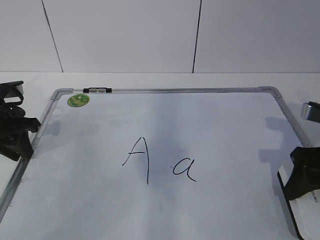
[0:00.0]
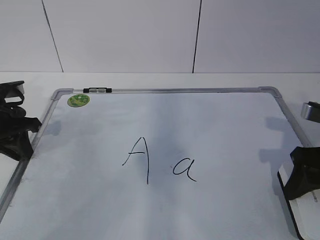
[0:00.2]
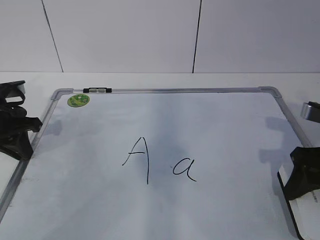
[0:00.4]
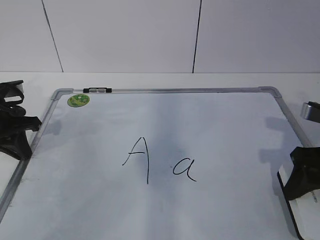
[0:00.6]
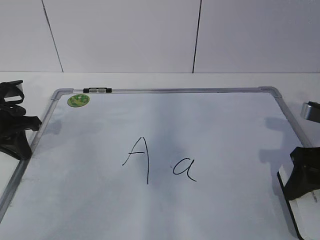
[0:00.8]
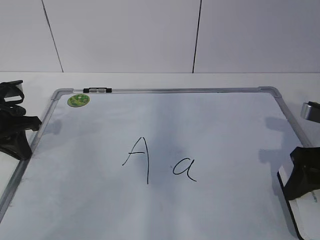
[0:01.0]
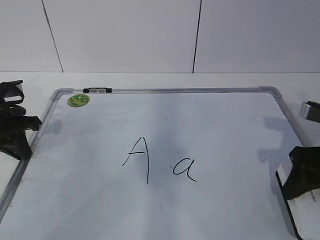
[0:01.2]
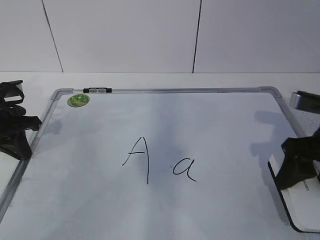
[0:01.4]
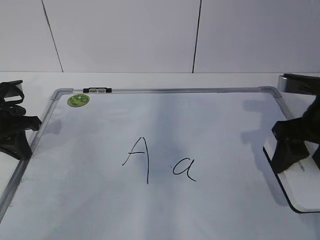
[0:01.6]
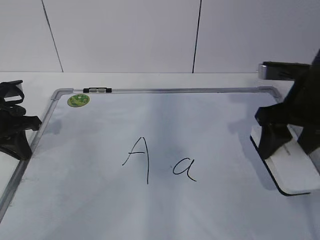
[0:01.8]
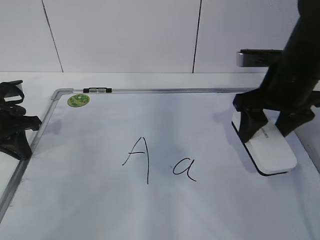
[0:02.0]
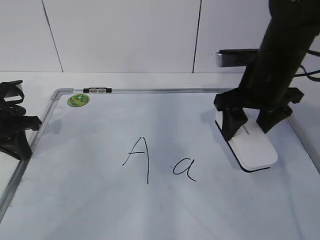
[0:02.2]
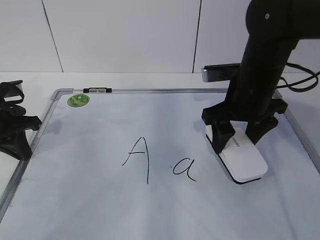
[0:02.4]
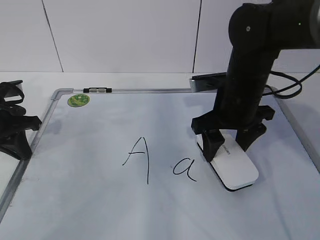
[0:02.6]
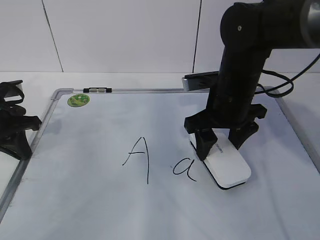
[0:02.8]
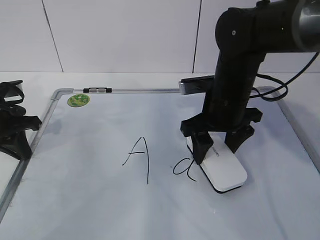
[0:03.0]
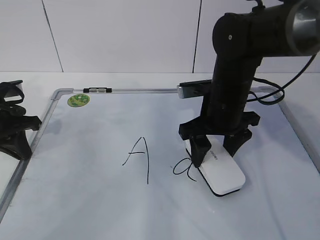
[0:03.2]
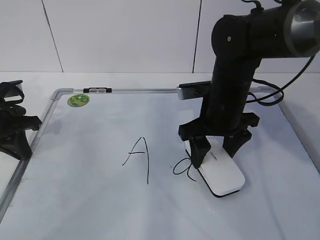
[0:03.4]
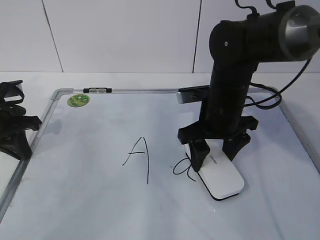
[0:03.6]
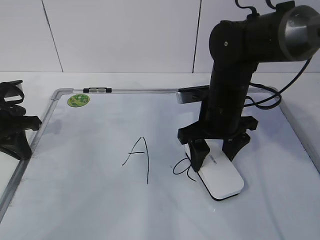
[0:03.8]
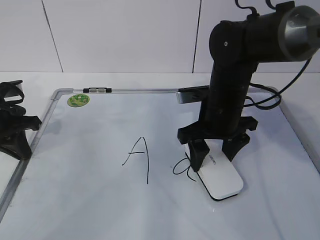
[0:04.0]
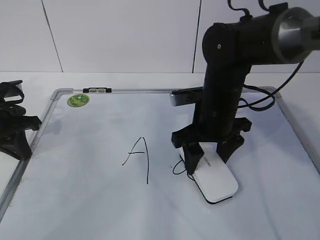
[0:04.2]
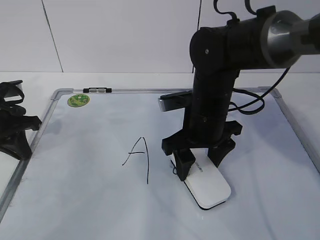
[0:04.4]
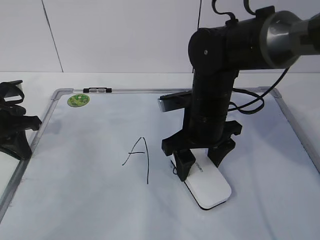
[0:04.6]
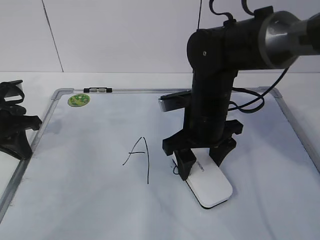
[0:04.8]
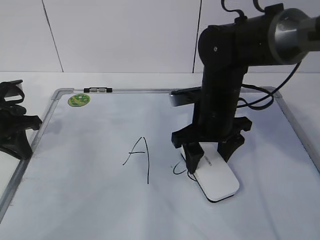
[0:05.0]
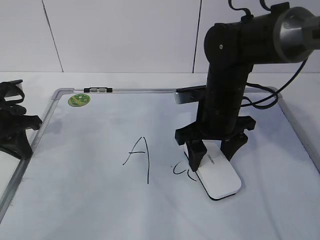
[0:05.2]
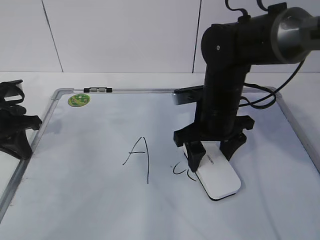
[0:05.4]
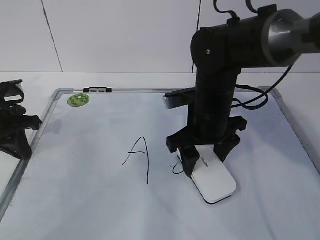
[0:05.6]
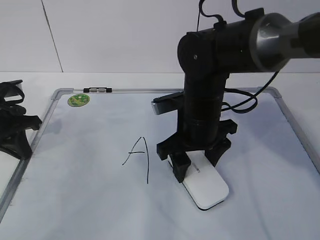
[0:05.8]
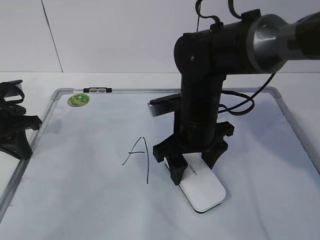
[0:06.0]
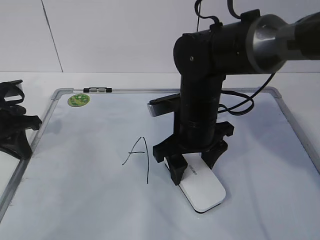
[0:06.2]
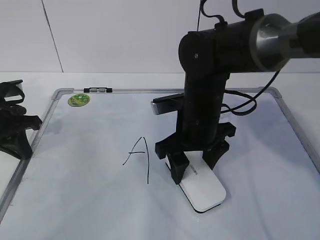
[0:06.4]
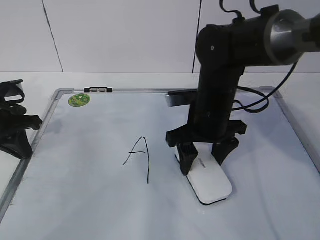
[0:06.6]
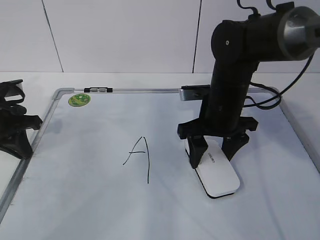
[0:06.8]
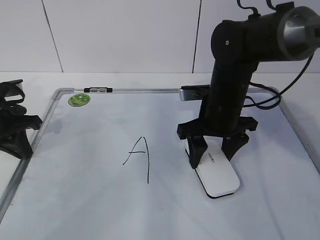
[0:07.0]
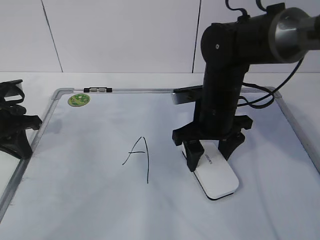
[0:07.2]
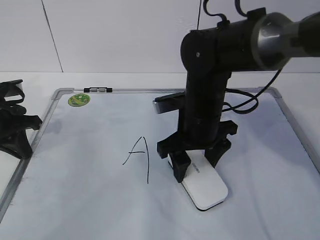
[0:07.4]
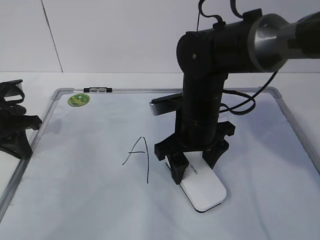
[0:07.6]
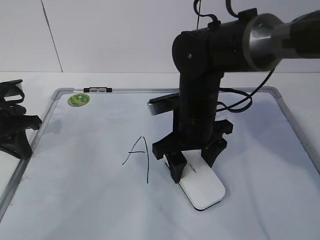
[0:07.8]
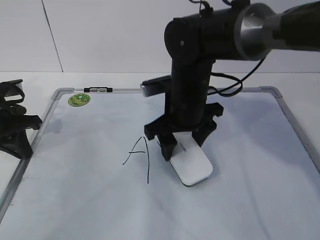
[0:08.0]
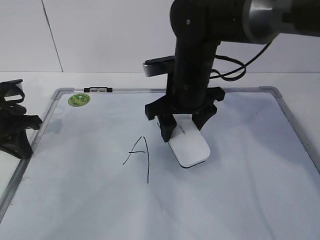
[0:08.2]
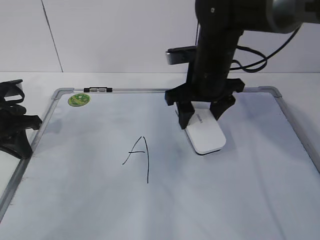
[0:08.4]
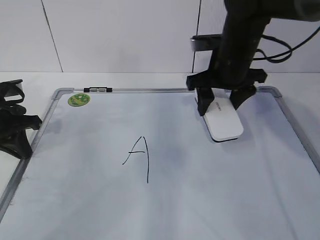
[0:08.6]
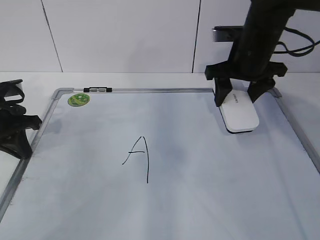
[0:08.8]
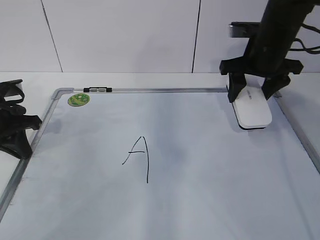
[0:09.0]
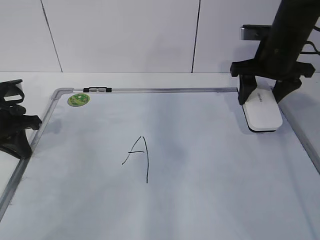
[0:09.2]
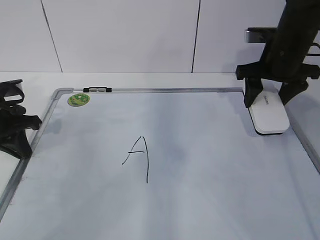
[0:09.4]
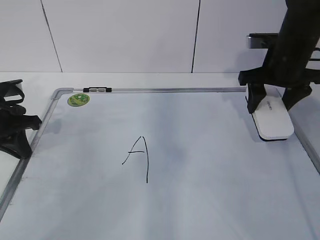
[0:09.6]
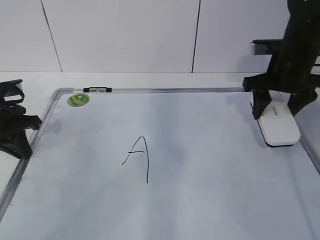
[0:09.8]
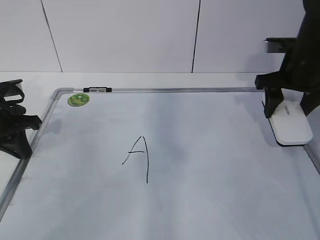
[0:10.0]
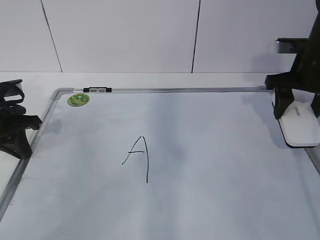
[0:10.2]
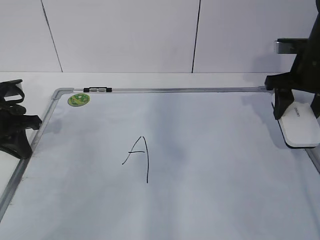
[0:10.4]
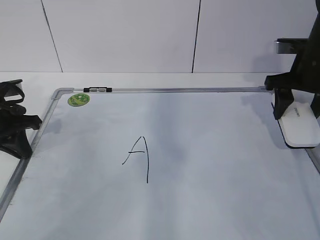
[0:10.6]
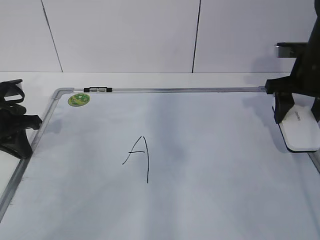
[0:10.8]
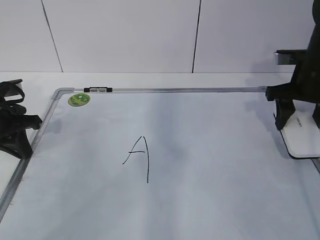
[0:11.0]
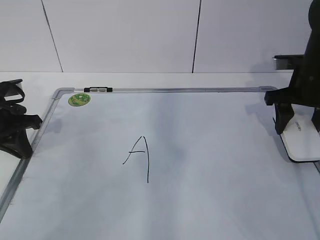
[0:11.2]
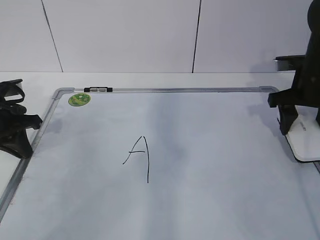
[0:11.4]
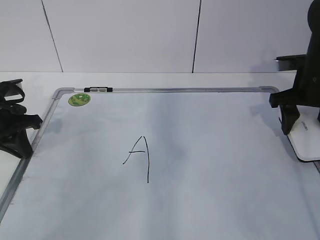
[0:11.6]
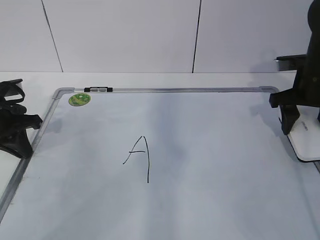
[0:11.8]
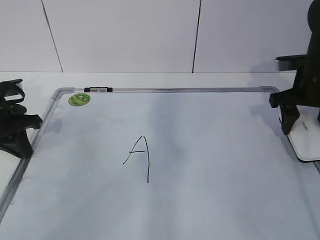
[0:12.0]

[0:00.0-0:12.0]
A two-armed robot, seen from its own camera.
Task of the whole recording: pick up the eraser on the blackboard and erase the letter "a".
Step, 0:00.0 to 0:04.0: Erase the letter a with your right hand.
Step, 0:04.2 to 0:08.8: Put down the eraser with your right hand.
0:00.0 to 0:01.6: The left gripper closes. Meanwhile the right gripper shifts by roughly 5 cm.
0:01.6 to 0:03.0: The right gripper travels to the left and forward by some 15 cm.
0:03.0 to 0:04.4: The grippers make only small movements.
0:04.4 to 0:06.0: The grippers move only a little.
0:07.6 to 0:09.0: The right gripper moves to the right, forward and upward, some 20 cm.
0:09.0 to 0:10.4: The right gripper shifts about 5 cm to the right.
0:10.4 to 0:12.0: There are only small adjustments of the grippers.

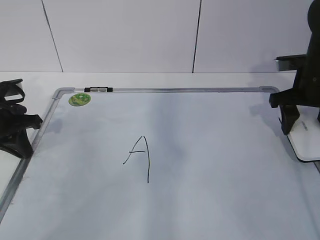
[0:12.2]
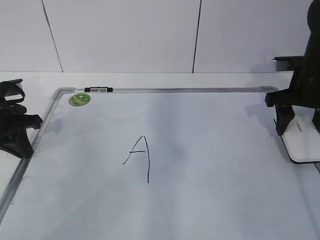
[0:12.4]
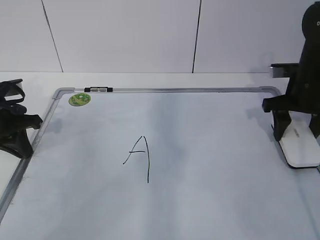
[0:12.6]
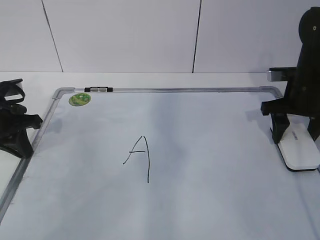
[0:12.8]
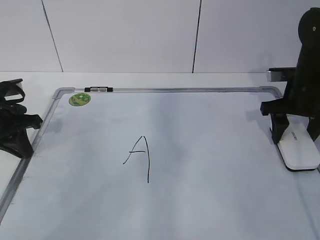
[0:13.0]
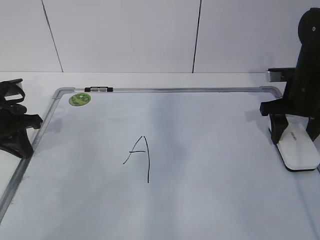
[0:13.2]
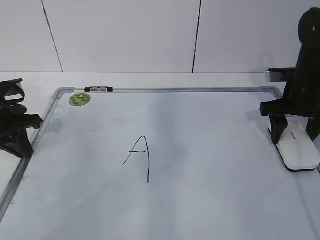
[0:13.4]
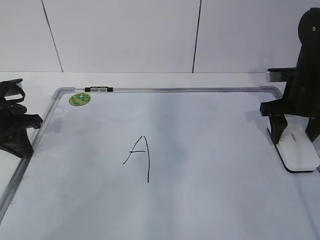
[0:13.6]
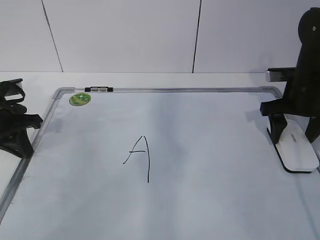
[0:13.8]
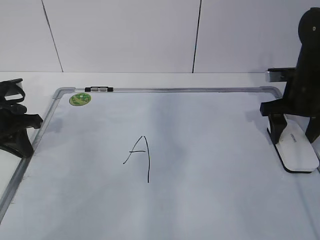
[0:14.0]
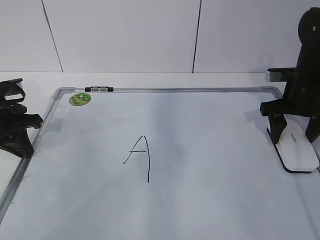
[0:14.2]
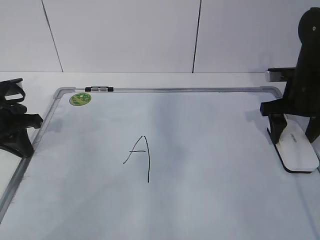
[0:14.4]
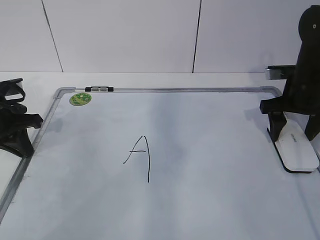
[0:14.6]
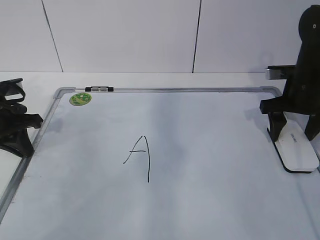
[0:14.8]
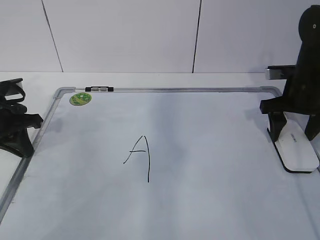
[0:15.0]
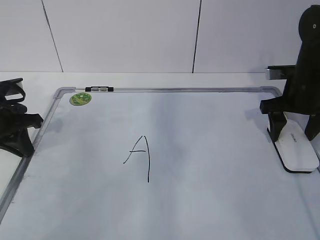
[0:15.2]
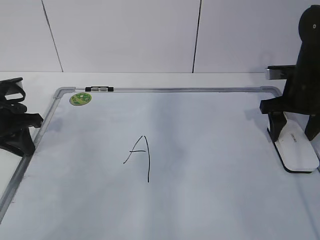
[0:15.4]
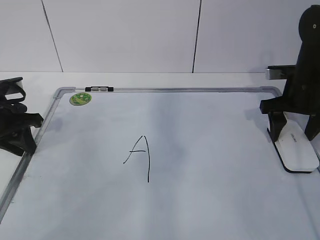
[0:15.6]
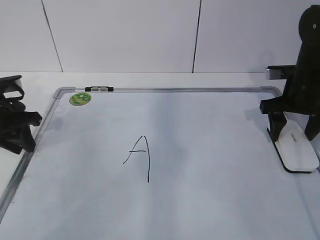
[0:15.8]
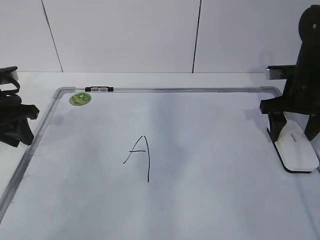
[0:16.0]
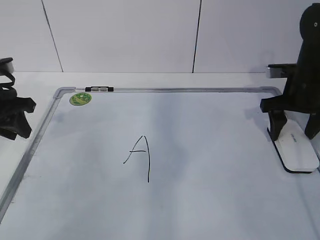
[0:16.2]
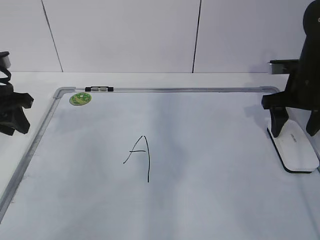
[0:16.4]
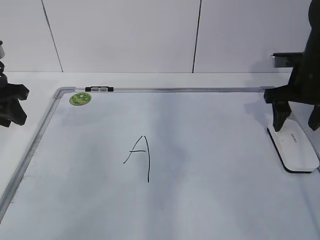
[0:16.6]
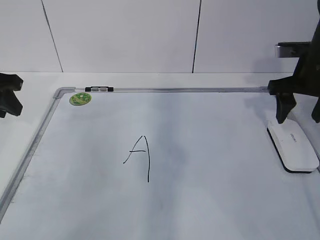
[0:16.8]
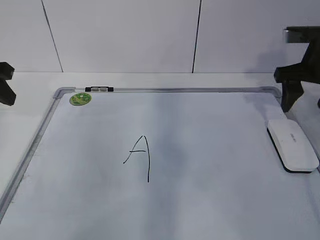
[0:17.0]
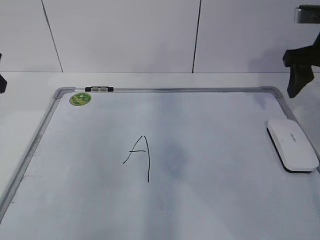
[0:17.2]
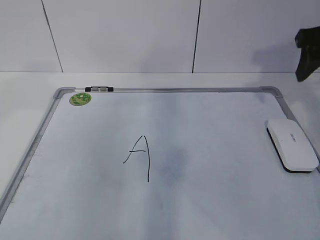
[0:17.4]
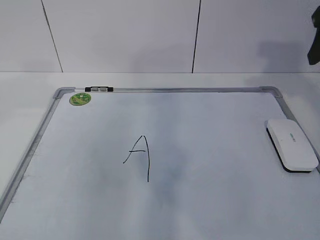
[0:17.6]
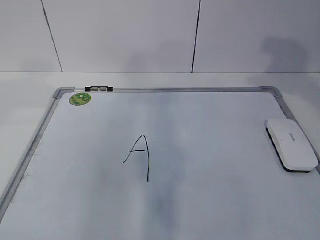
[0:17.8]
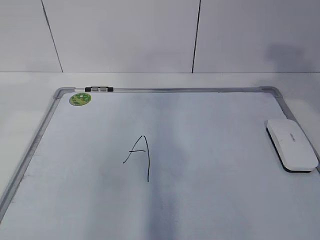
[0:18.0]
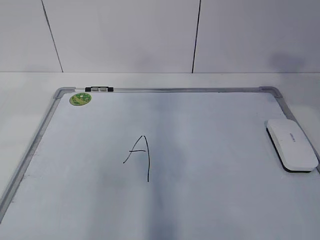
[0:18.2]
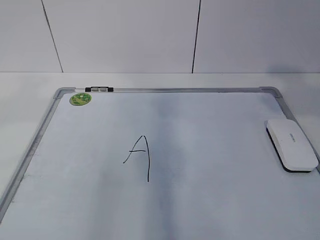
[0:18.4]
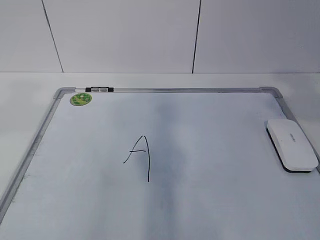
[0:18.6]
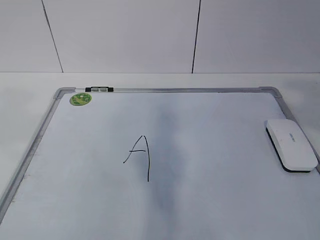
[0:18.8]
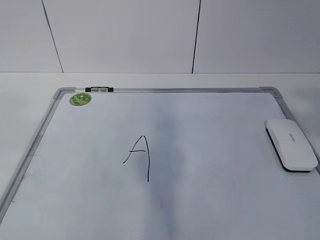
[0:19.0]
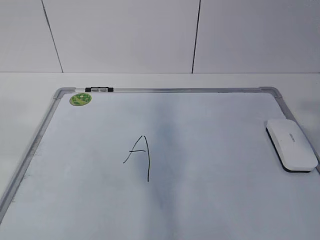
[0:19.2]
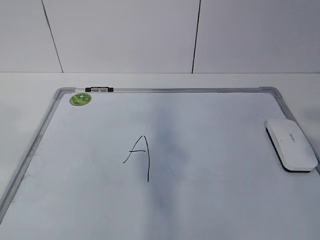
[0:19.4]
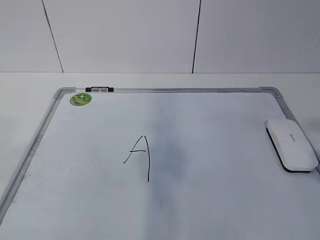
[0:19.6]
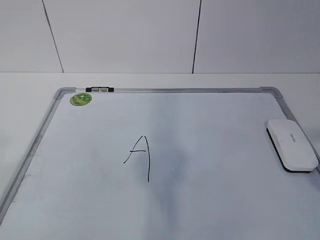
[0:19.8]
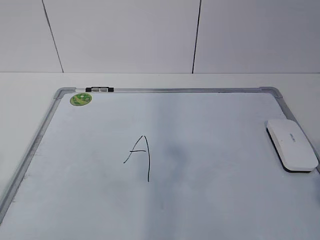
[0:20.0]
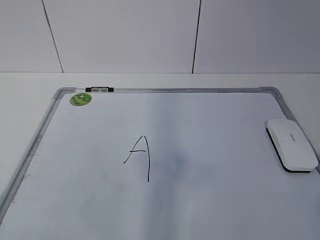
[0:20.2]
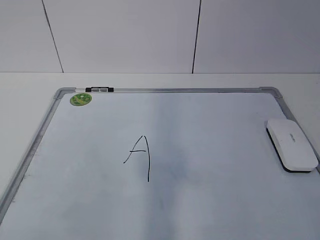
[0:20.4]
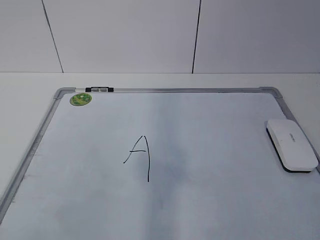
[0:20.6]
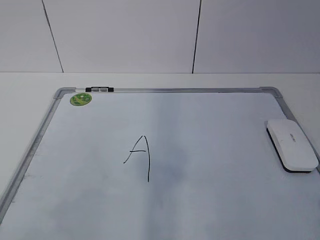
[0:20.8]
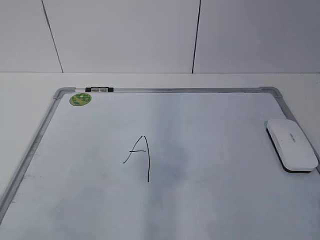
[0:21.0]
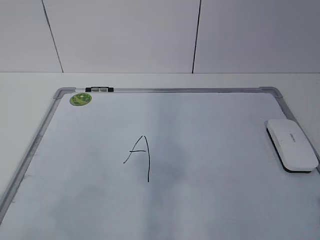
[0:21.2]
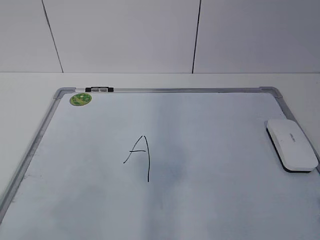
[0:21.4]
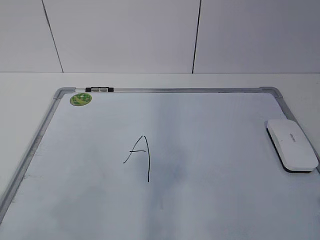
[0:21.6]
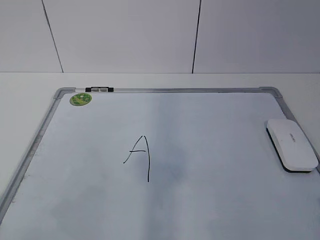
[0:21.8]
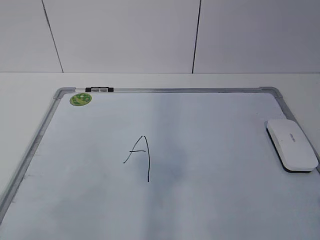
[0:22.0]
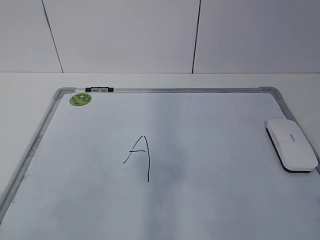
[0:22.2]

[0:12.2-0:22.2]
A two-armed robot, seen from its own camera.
Task of the whole recording: pick up the eraser on the blackboard and erase the letter "a".
0:12.2 to 0:13.6: The right gripper opens.
0:13.6 to 0:15.0: The two grippers keep their place.
0:15.0 to 0:16.4: The left gripper opens up.
0:16.4 to 0:18.0: Both grippers travel together upward and backward, roughly 25 cm.
0:18.0 to 0:19.4: The right gripper moves backward, roughly 20 cm, and opens, then closes again.
0:20.8 to 0:22.2: Both grippers stay about where they are.
